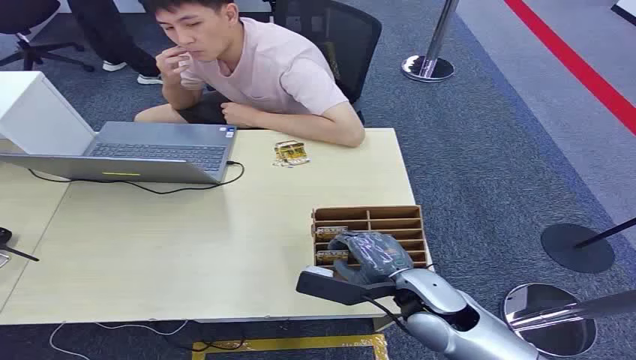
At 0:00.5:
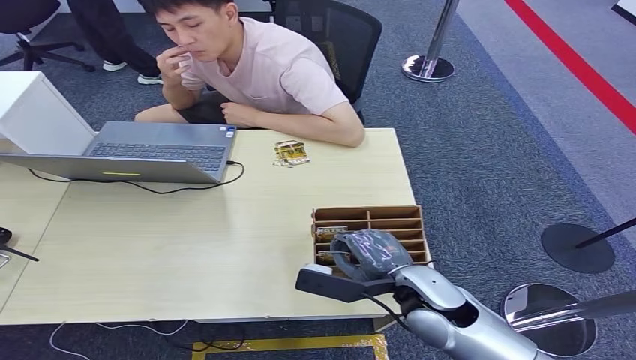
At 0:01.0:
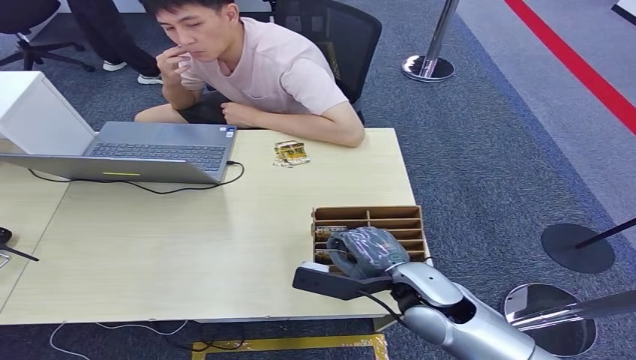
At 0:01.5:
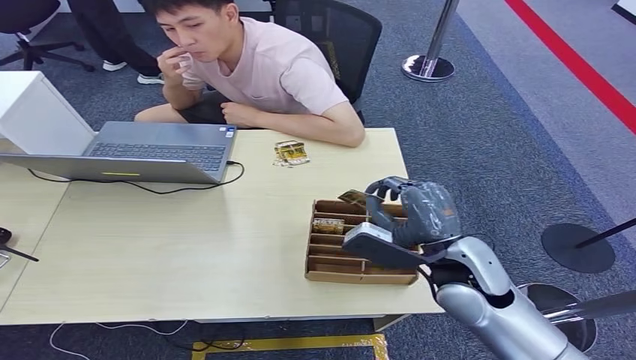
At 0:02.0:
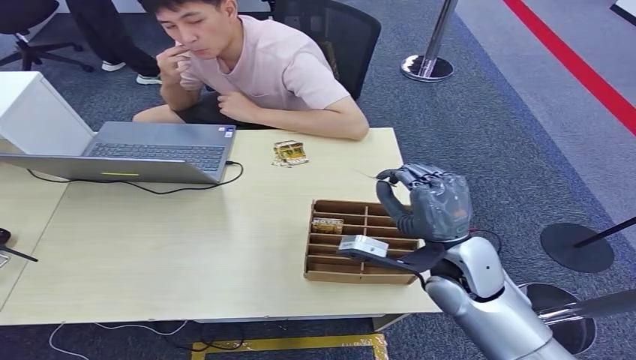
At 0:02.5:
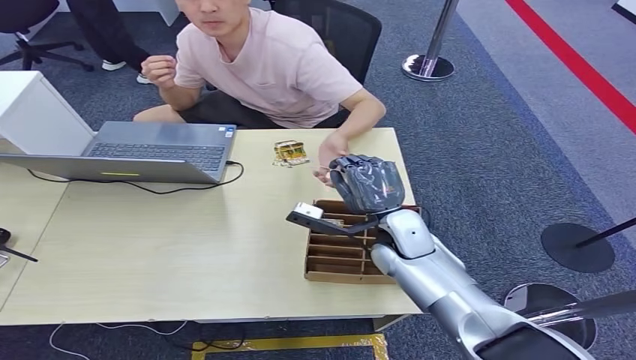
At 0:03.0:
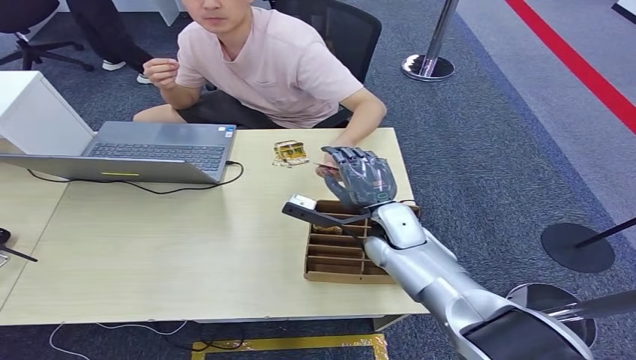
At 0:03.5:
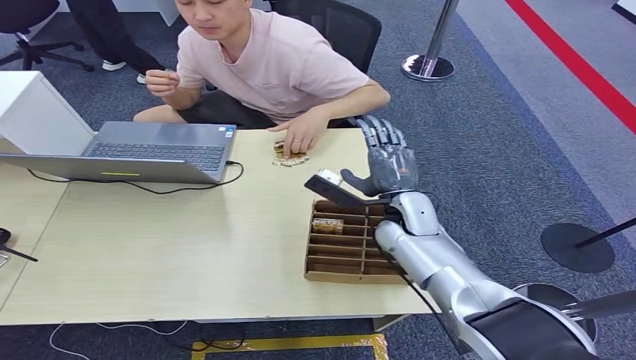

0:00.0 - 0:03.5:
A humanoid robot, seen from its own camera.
Step, 0:00.0 - 0:01.5: Pick up the key card from the card box.
Step, 0:02.0 - 0:03.5: Hand the key card to the target.
0:02.0 - 0:03.5: The right hand shifts approximately 10 cm forward.

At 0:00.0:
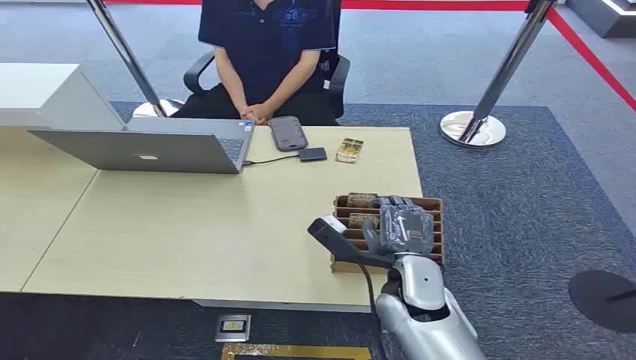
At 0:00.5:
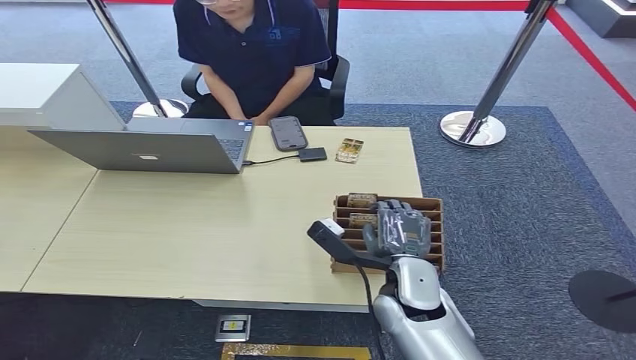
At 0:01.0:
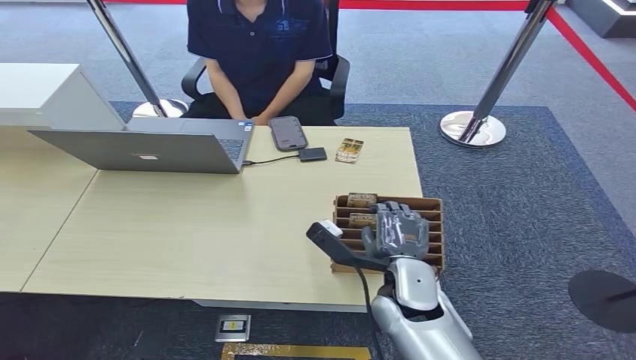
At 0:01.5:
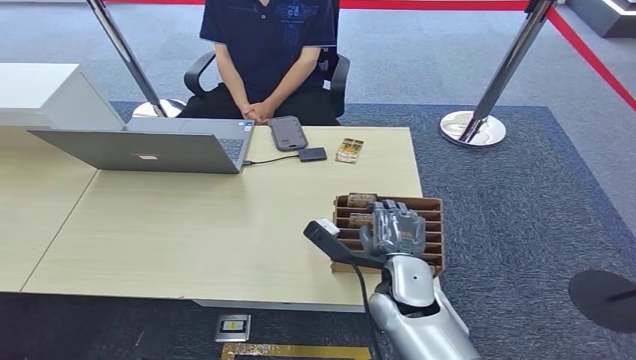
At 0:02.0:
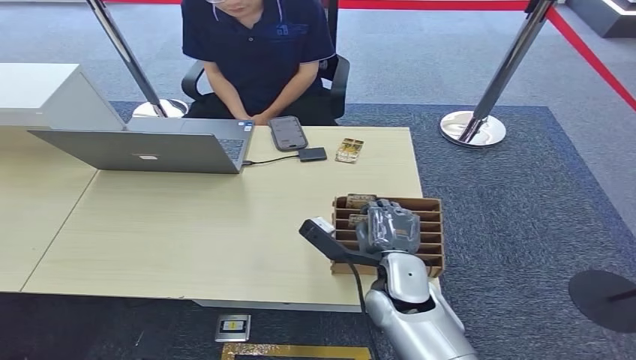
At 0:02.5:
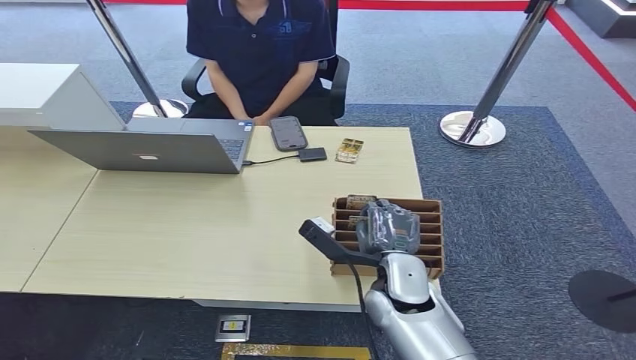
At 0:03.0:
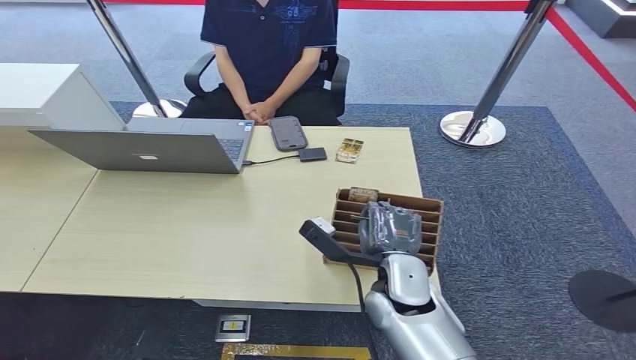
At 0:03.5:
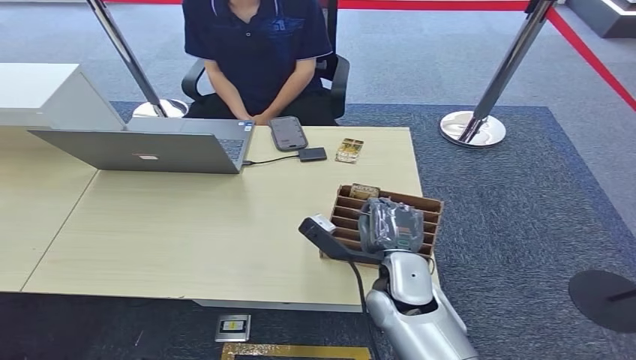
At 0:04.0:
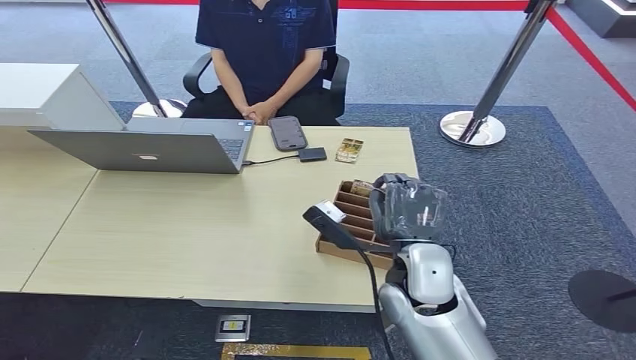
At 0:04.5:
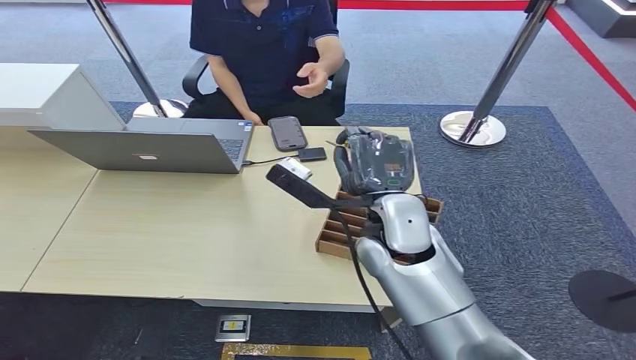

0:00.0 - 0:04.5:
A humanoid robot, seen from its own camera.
Step, 0:00.0 - 0:04.0: Pick up the key card from the card box.
0:02.0 - 0:04.5: The right hand heads upward and forward, covering about 15 cm.
